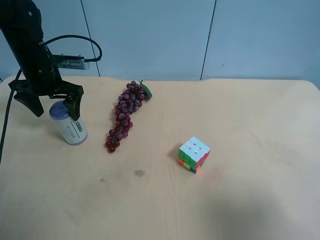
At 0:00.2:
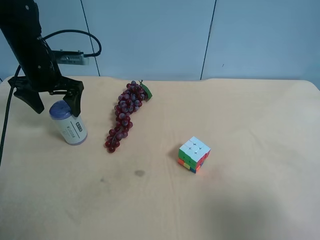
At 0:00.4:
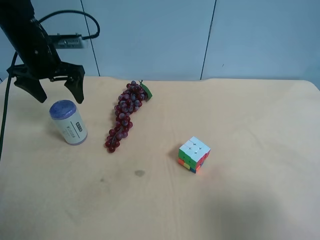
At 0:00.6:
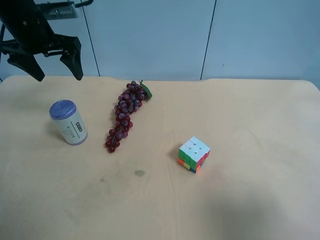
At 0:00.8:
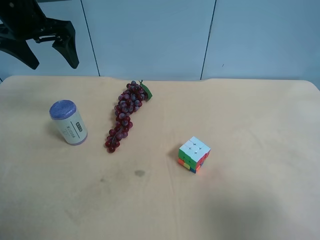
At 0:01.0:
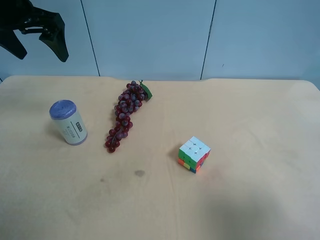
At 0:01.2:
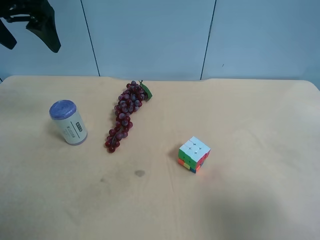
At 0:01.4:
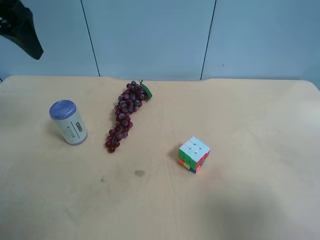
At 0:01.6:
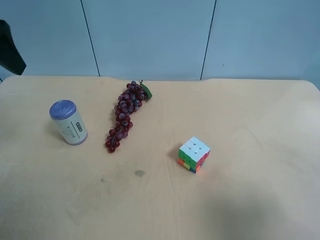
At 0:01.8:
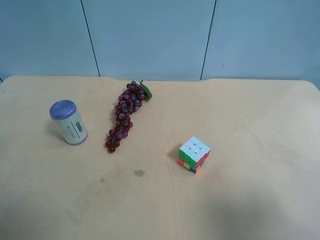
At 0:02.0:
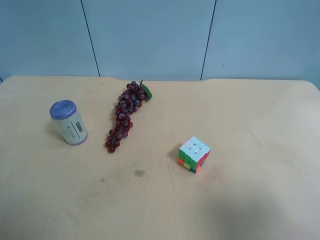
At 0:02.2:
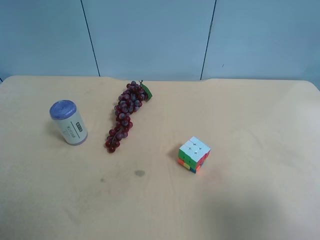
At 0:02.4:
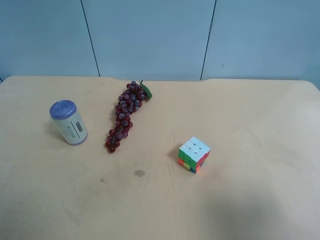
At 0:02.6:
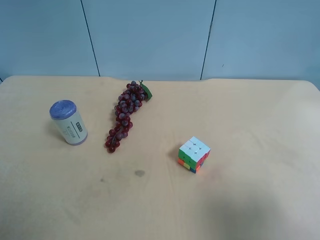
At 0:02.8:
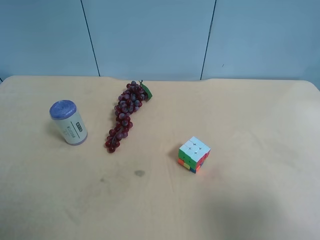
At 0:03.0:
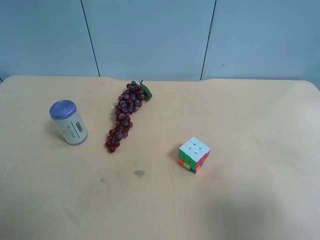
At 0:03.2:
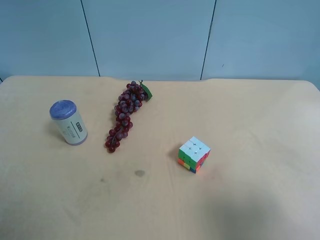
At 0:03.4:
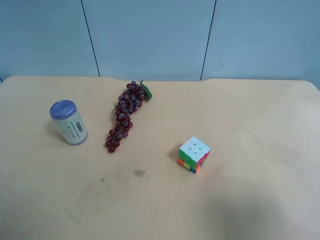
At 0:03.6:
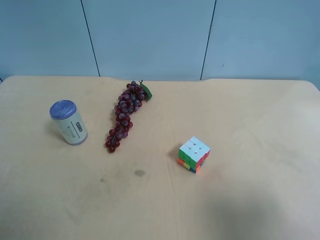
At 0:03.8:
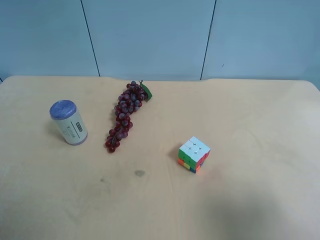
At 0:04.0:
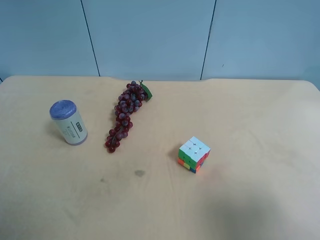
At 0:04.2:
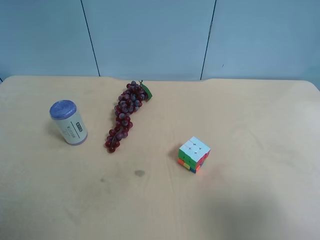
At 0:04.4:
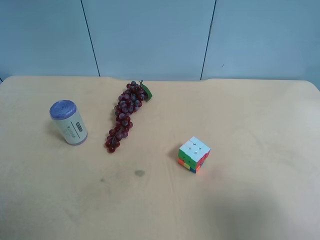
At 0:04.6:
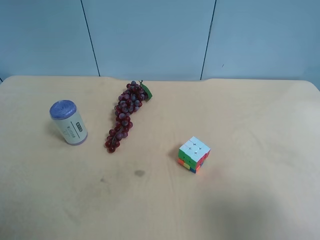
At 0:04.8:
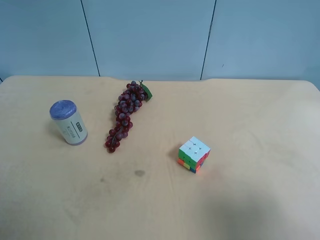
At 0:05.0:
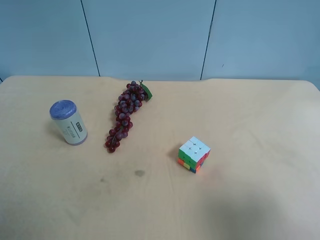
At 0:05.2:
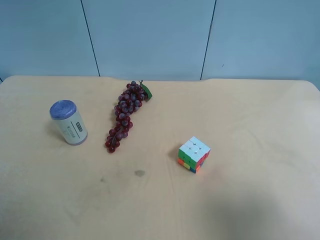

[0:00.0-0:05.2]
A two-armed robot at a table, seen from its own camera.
Task of the whole recording: use the right gripper to pick up the item and transfer it from the right gripper to the left gripper.
0:00.0 to 0:01.8: The left gripper heads backward and upward, covering approximately 30 cm.
